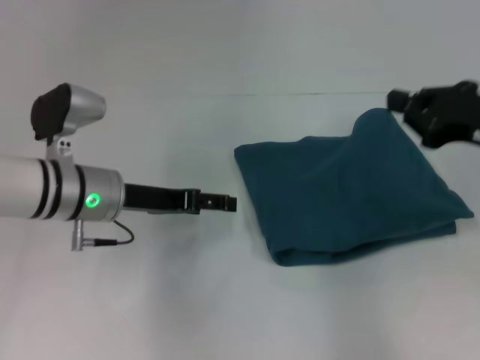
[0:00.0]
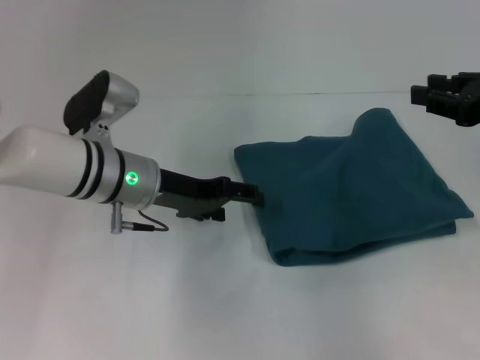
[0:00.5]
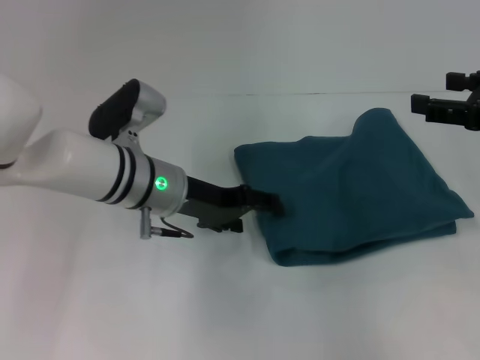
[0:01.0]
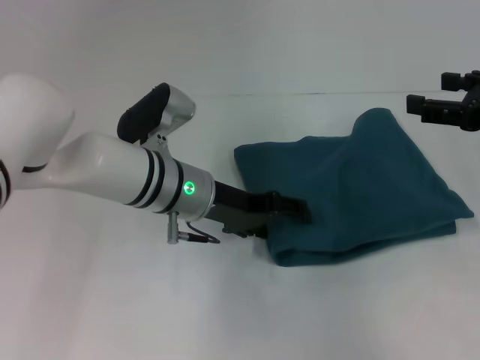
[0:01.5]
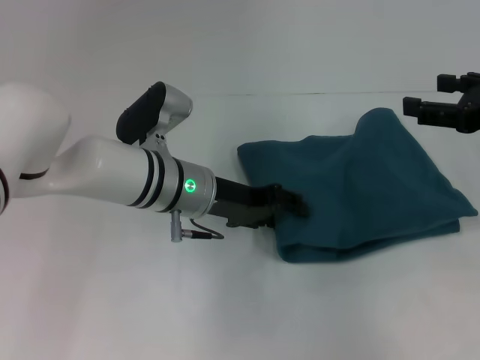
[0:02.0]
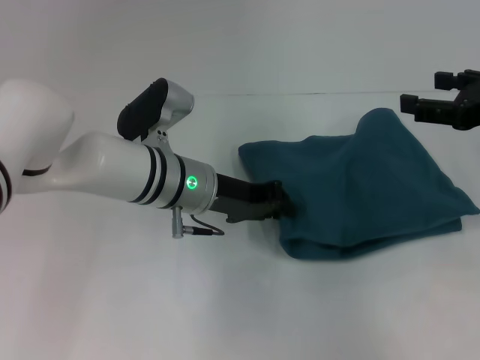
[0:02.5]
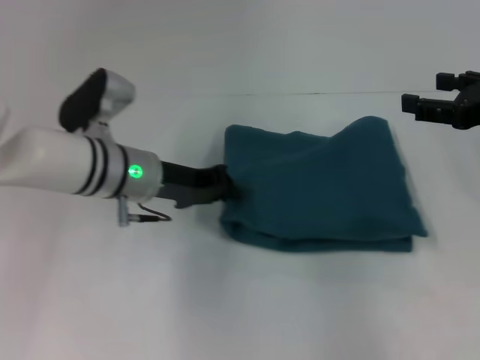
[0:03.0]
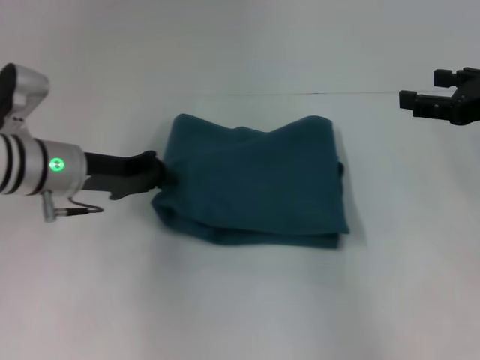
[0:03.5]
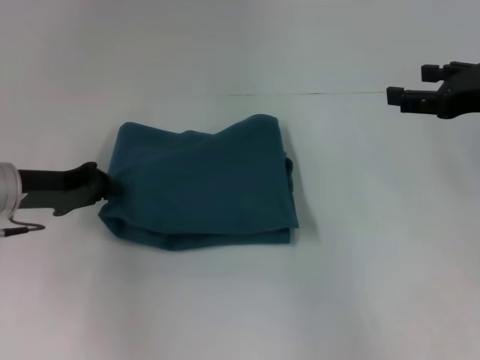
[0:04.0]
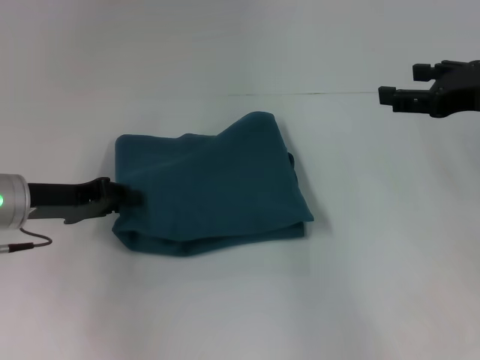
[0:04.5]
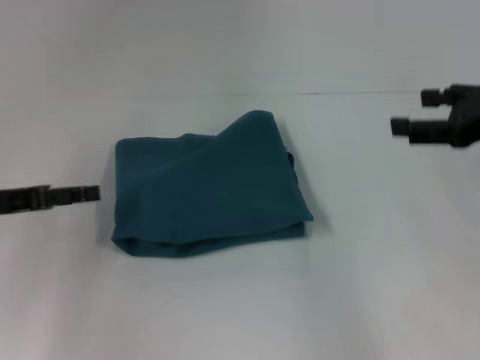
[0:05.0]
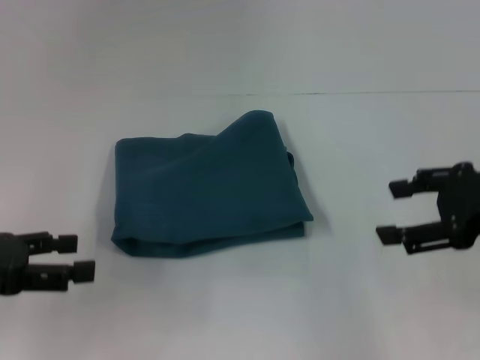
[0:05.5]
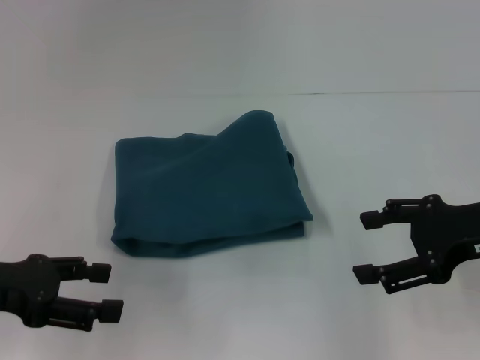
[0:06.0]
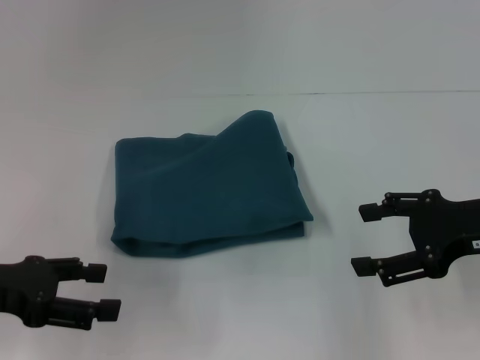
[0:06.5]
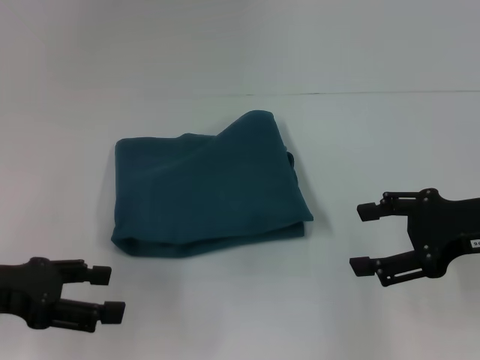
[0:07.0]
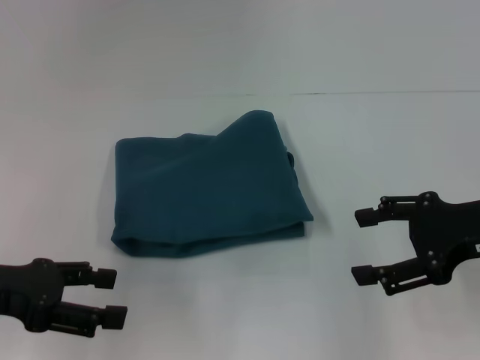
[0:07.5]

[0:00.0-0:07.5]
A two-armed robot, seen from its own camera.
0:00.0 to 0:02.0: The right gripper opens up, while the left gripper heads to the right, covering some 10 cm.
0:02.0 to 0:04.0: The left gripper heads to the left, covering about 20 cm, and closes its fingers.
0:04.0 to 0:05.5: The left gripper moves backward and to the left, approximately 10 cm, and opens up; the right gripper shifts some 5 cm backward.
0:05.5 to 0:07.5: The grippers move only a little.

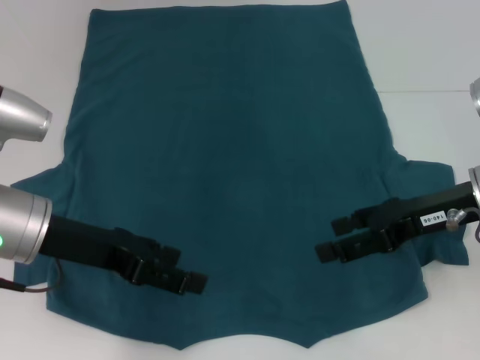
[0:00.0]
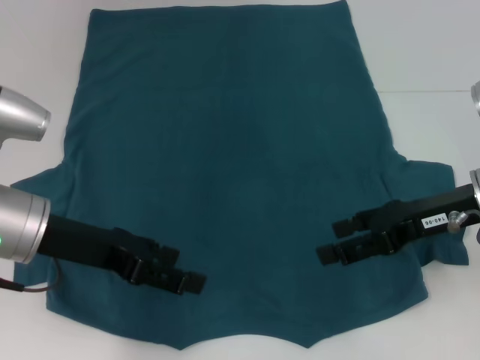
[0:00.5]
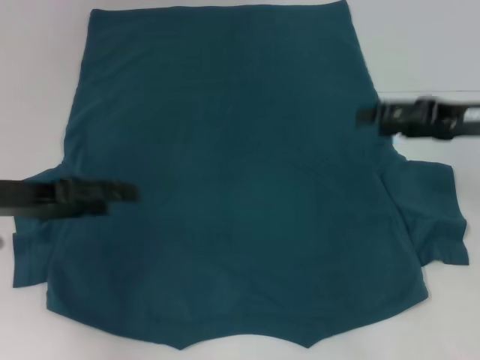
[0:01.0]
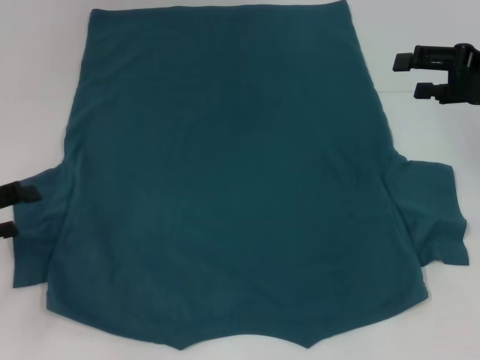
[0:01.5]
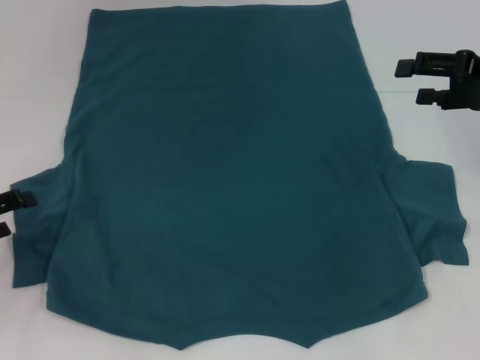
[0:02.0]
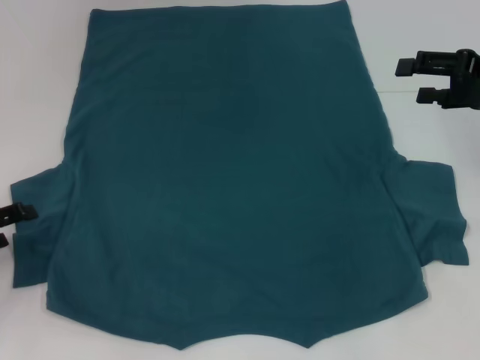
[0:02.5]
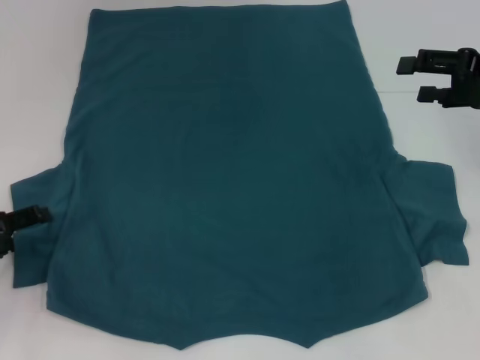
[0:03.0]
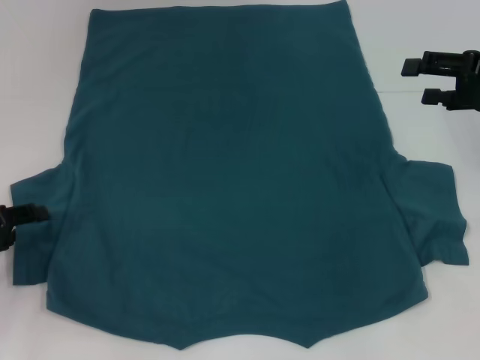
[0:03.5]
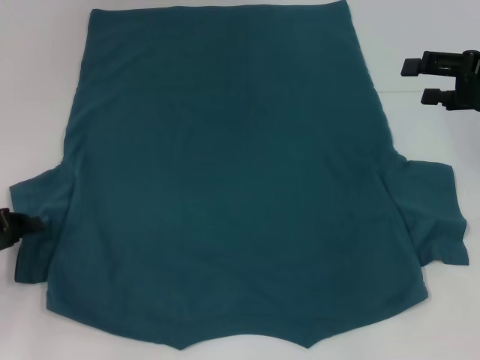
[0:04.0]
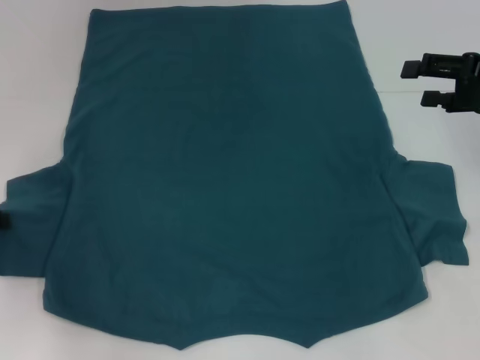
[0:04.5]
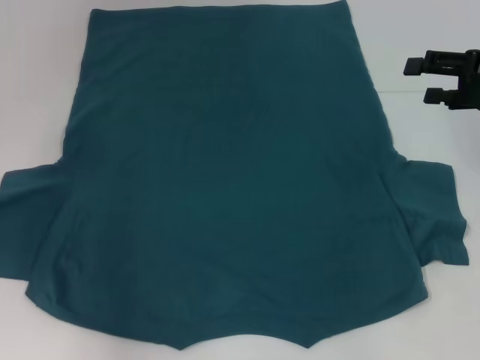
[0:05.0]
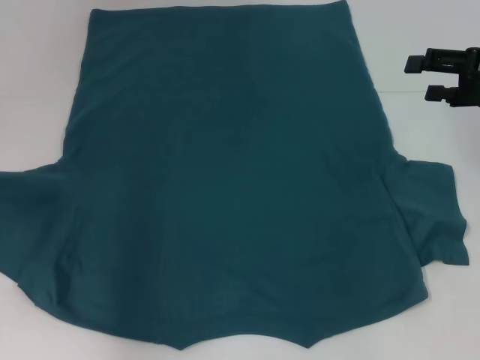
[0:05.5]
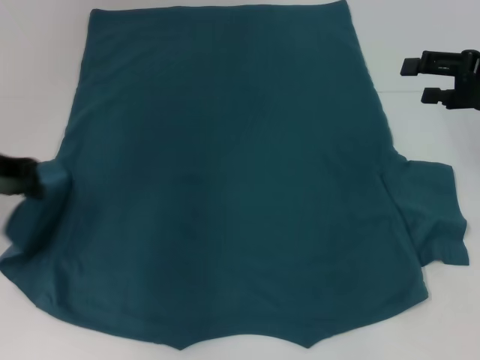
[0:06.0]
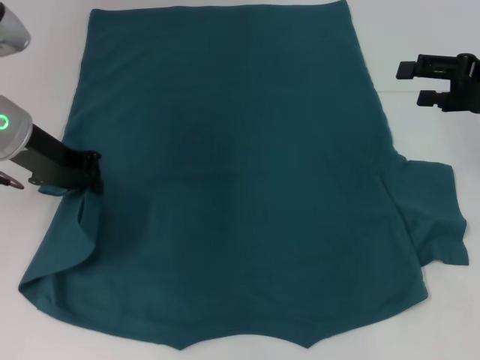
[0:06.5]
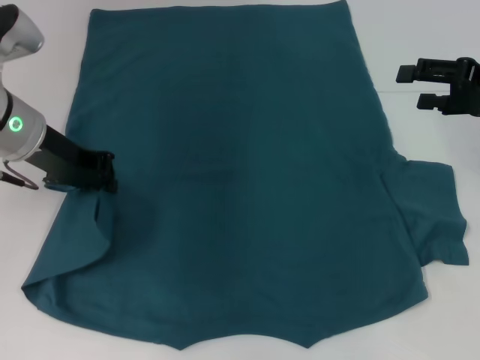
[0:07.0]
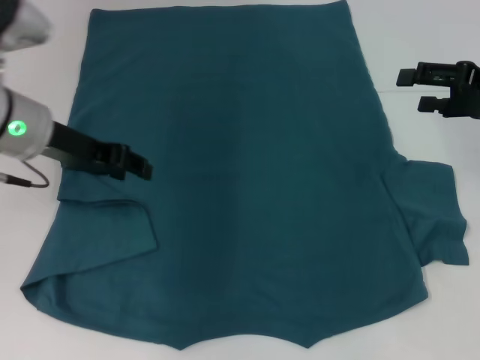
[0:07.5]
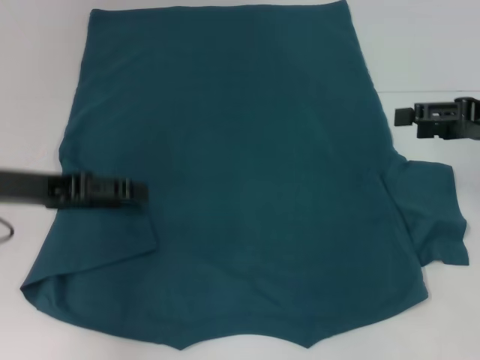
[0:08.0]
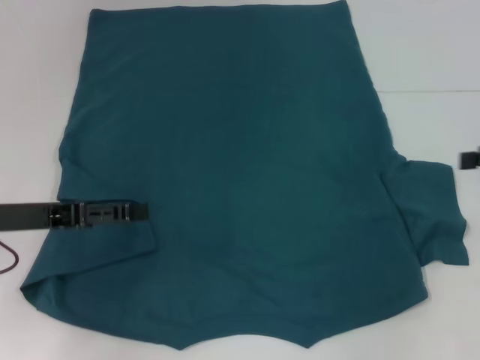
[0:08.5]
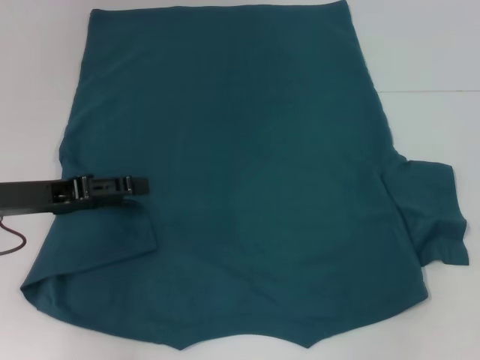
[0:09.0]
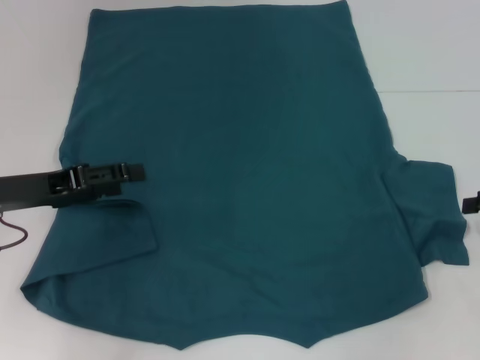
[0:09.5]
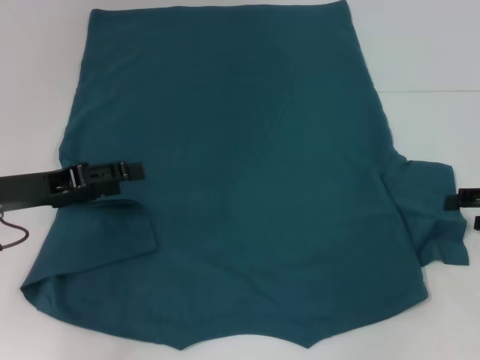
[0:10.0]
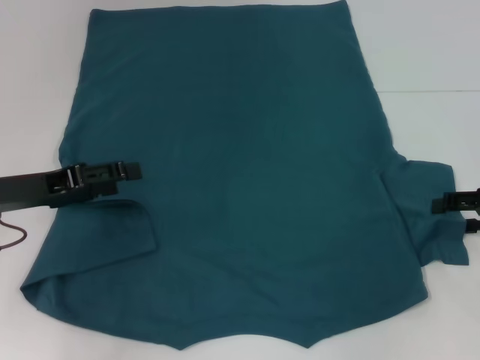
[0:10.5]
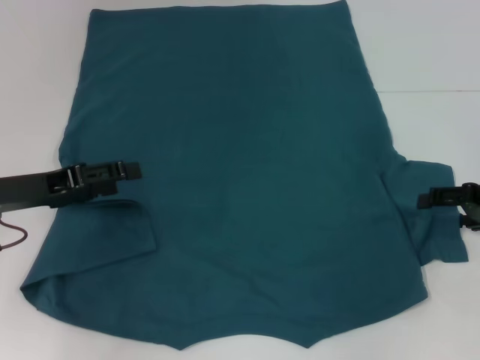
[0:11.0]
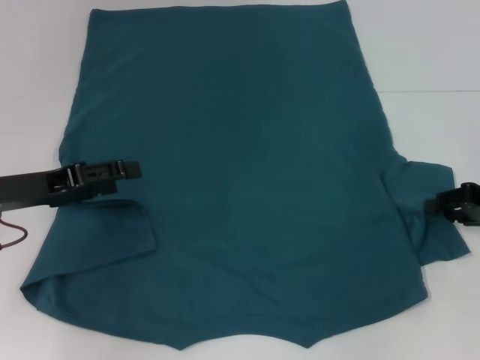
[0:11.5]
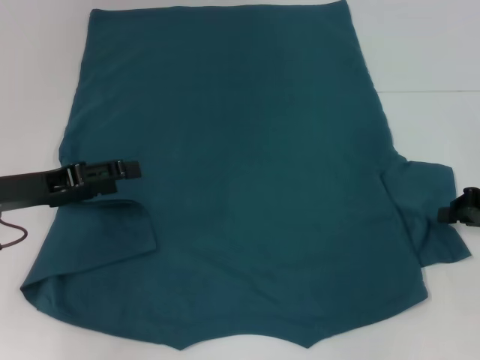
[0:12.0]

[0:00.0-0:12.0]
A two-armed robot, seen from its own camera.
Step, 0:00.0 to 0:07.5: Fold the bottom left sleeve with your left hand.
0:00.0 to 0:02.0: The right gripper travels to the right and forward by some 10 cm. Meanwhile the left gripper is displaced to the left and downward by approximately 15 cm.
0:02.0 to 0:04.0: The left gripper closes its fingers.
0:04.0 to 0:06.0: The left gripper is displaced upward, forward and to the right by approximately 15 cm.
0:06.0 to 0:08.0: The left gripper changes place by some 5 cm, and opens its fingers.
0:08.0 to 0:10.0: The right gripper is displaced downward by some 5 cm.
0:10.0 to 0:12.0: The right gripper closes its fingers.

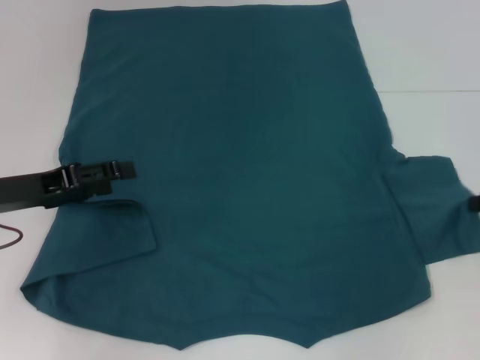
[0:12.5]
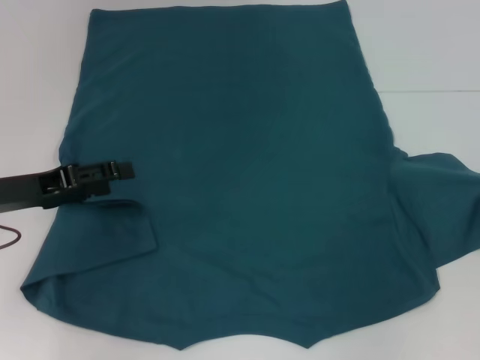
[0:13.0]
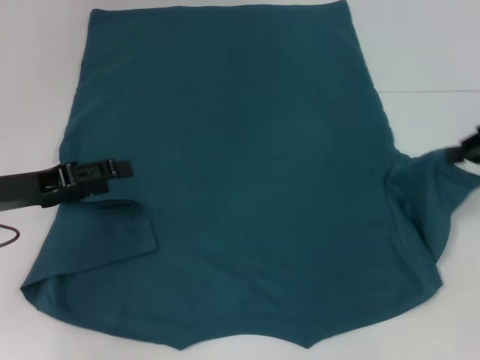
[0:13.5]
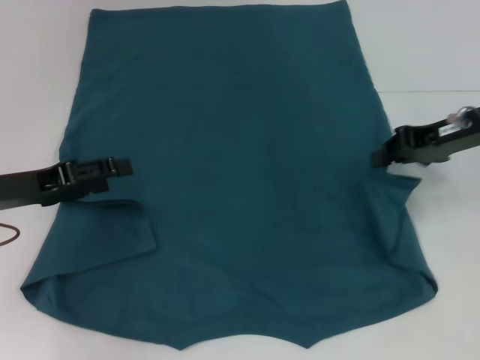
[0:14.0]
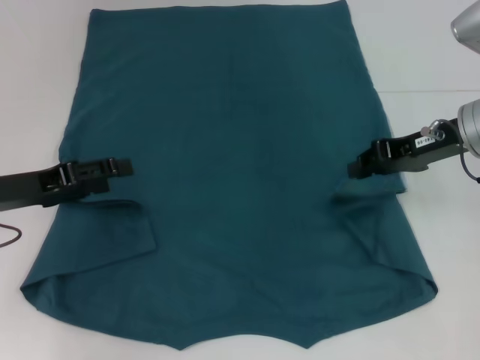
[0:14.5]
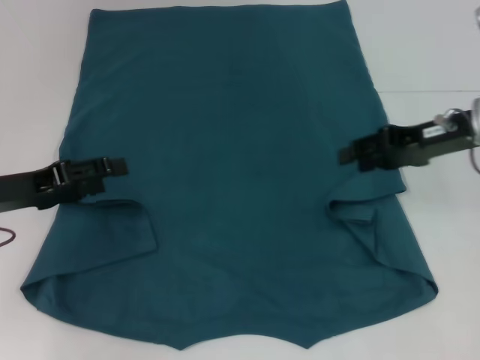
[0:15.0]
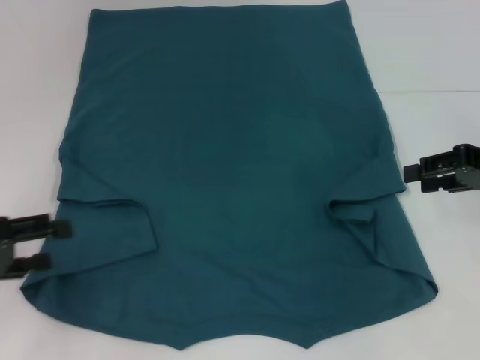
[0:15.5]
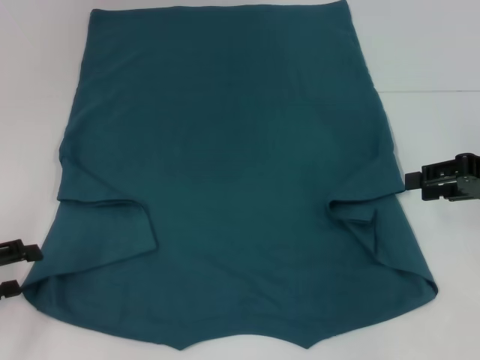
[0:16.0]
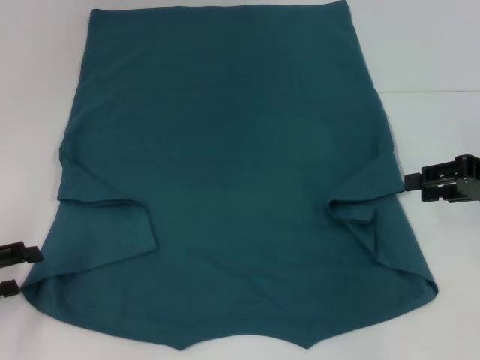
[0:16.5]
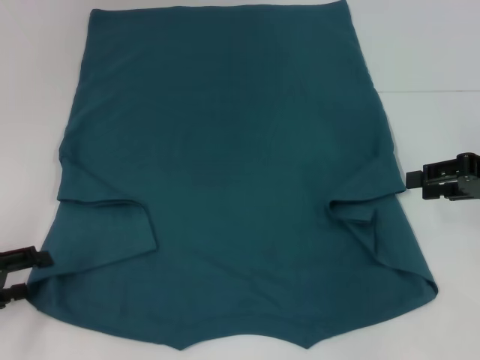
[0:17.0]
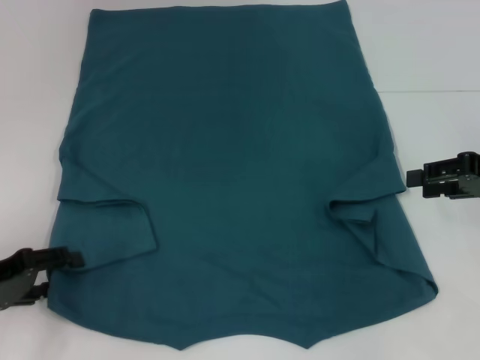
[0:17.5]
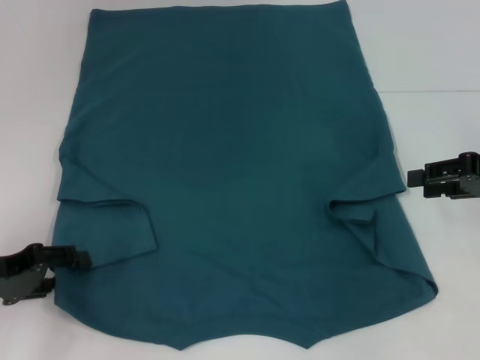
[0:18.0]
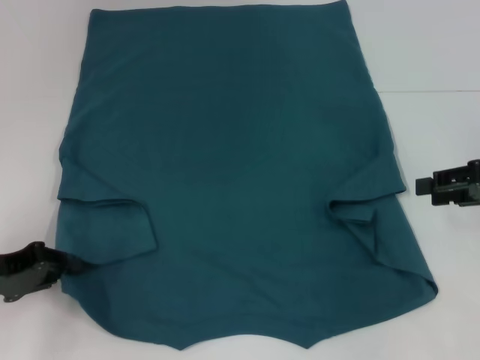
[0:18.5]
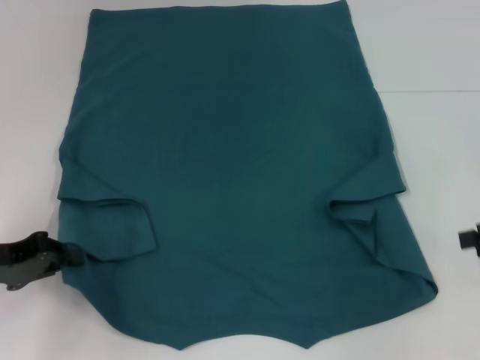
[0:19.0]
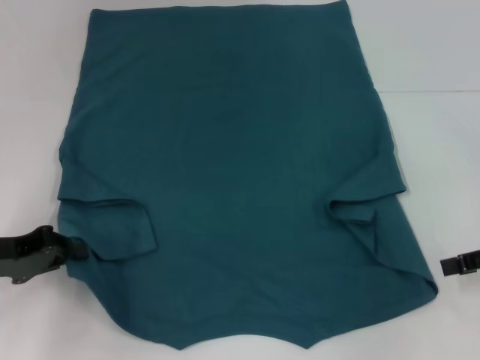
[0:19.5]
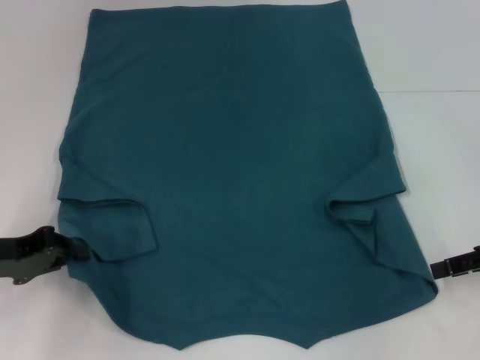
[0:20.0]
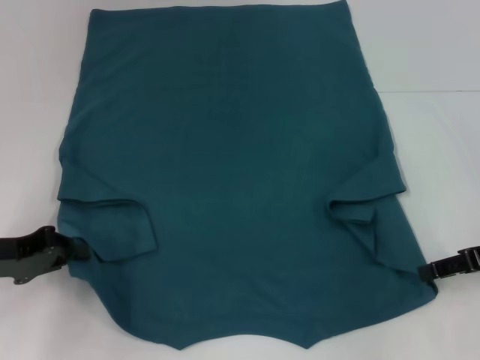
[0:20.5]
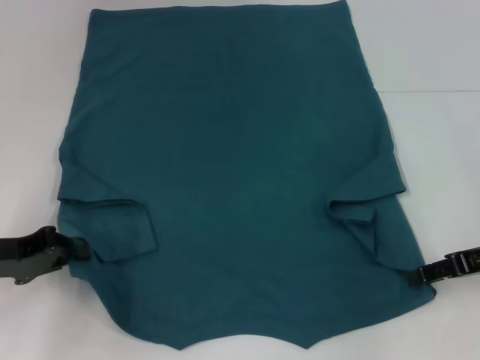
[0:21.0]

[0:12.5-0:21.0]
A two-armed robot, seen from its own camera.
Step, 0:12.5 to 0:14.5: Fold the bottom right sleeve to the right.
Step, 0:15.0 to 0:19.0: Grab the bottom left corner with your left hand.
0:12.5 to 0:14.5: The right gripper shifts about 15 cm to the left and forward.
0:14.5 to 0:16.5: The left gripper goes roughly 10 cm backward and to the left. Meanwhile the right gripper is displaced to the right by approximately 10 cm, and opens up.
0:16.5 to 0:19.0: The left gripper ends up some 5 cm from where it was, and closes, while the right gripper shifts by about 5 cm.
0:19.0 to 0:21.0: The right gripper moves to the left, some 5 cm.
